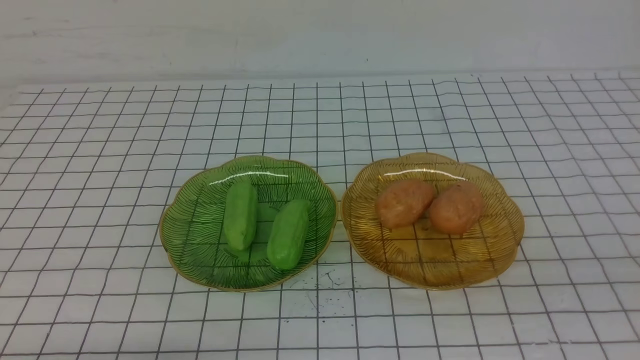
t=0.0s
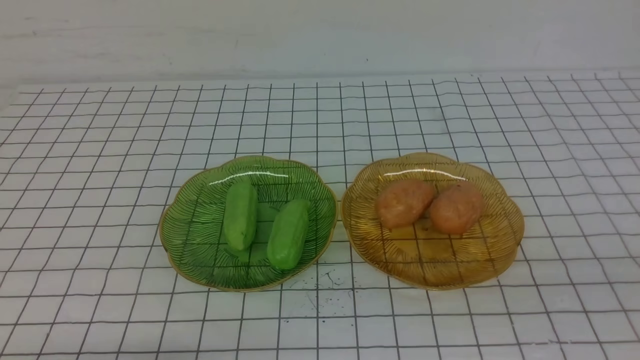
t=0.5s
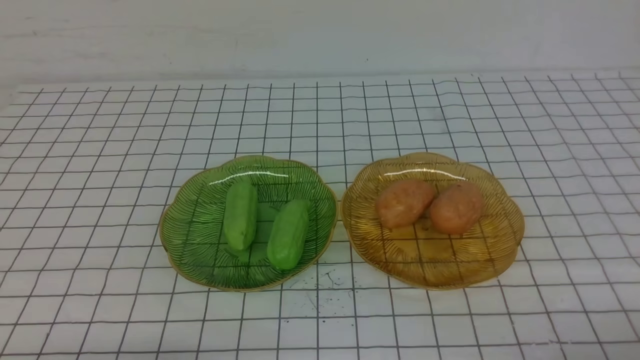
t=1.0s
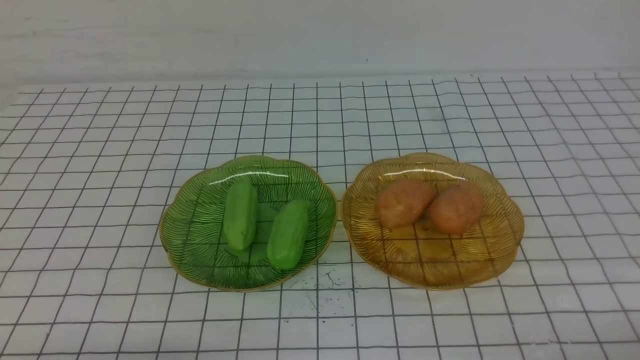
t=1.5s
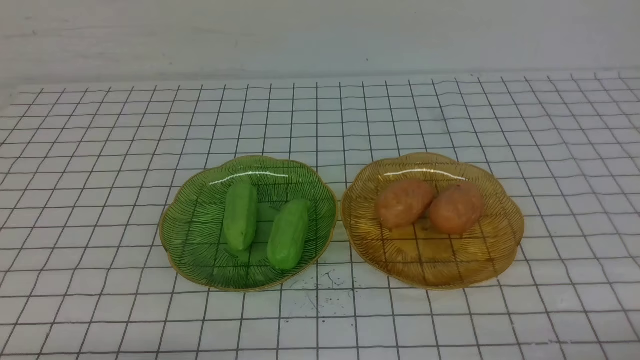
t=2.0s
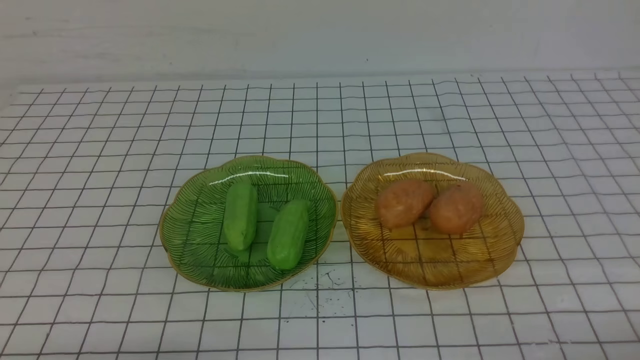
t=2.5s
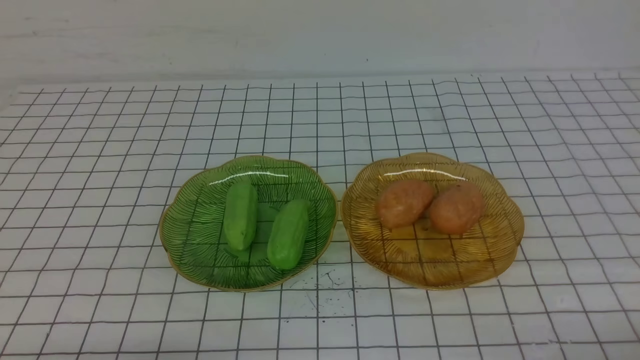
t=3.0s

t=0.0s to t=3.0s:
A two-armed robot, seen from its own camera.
t=1.5s to t=3.0s: Neither gripper changes place.
